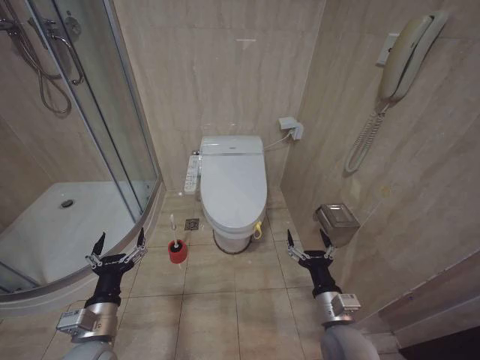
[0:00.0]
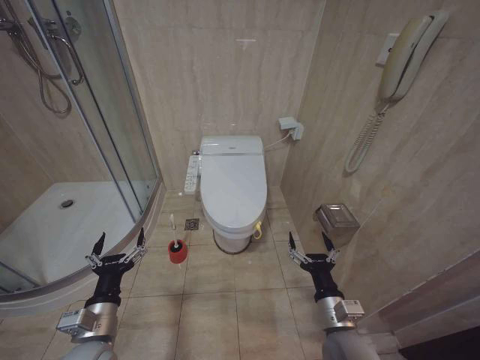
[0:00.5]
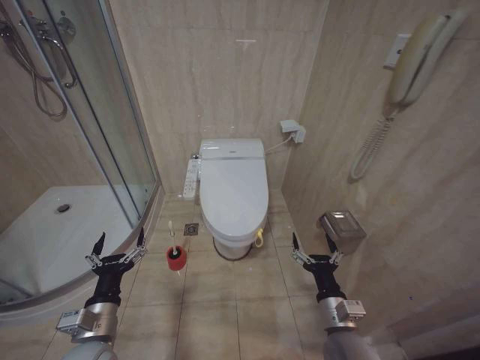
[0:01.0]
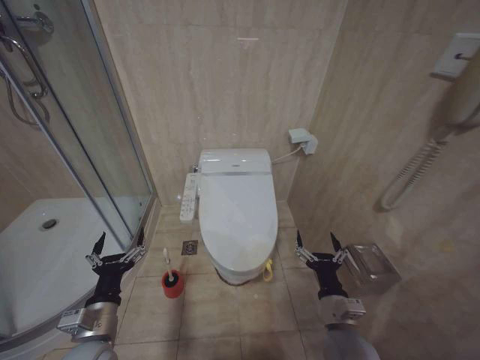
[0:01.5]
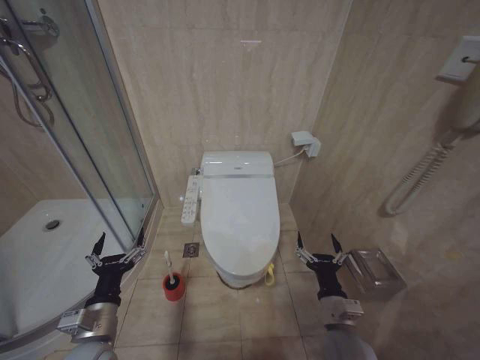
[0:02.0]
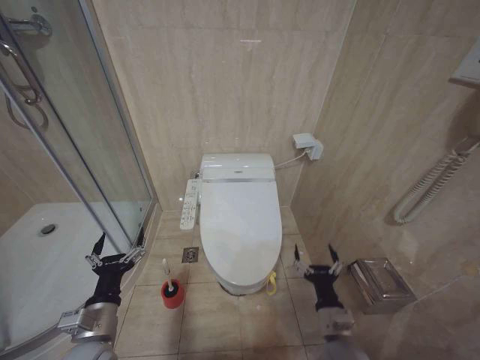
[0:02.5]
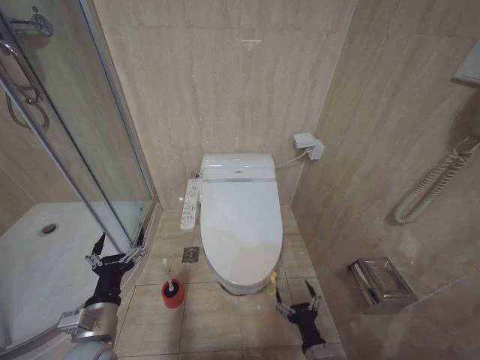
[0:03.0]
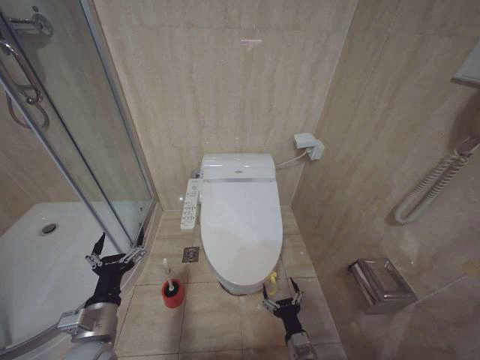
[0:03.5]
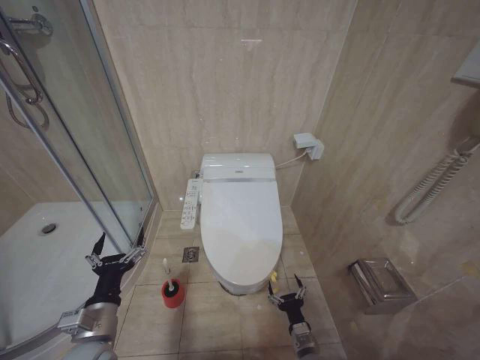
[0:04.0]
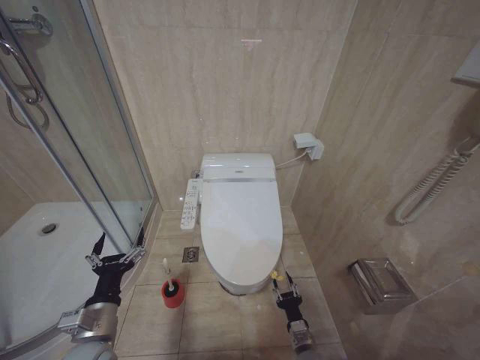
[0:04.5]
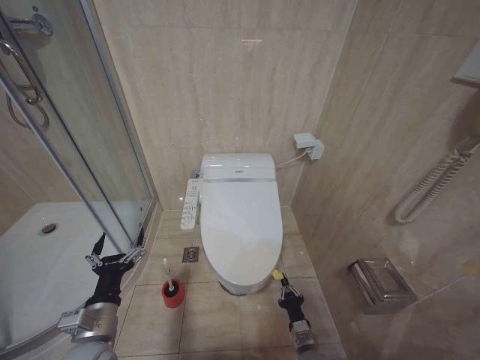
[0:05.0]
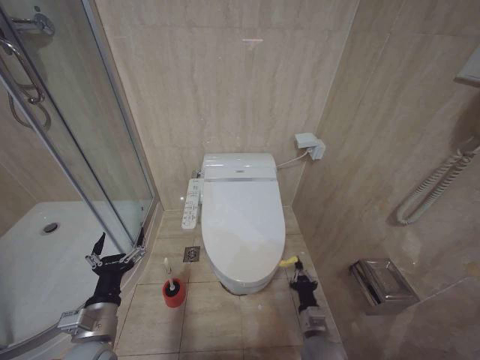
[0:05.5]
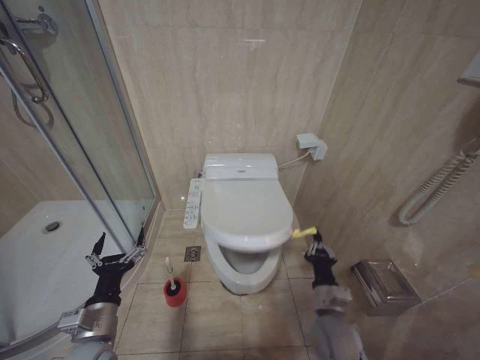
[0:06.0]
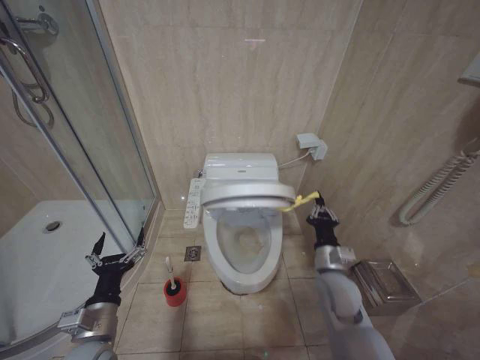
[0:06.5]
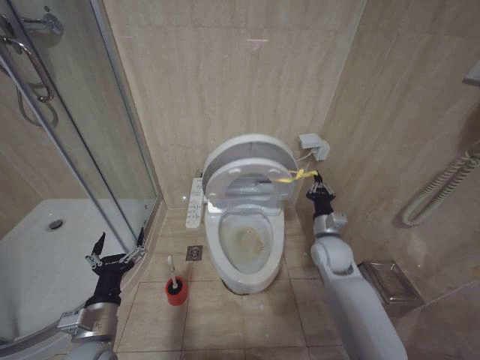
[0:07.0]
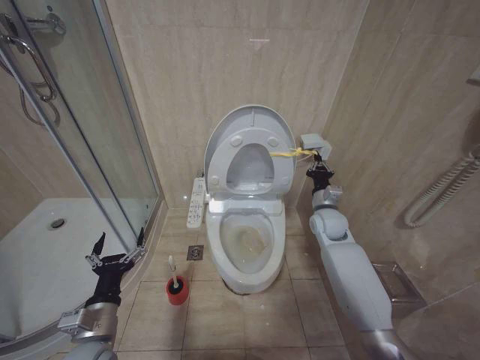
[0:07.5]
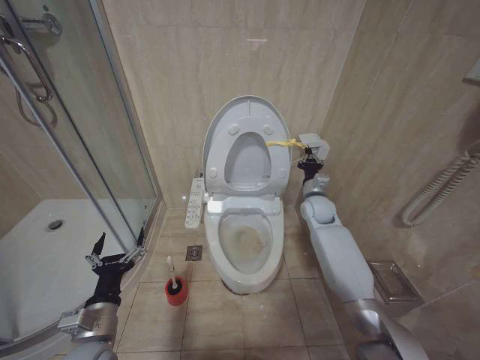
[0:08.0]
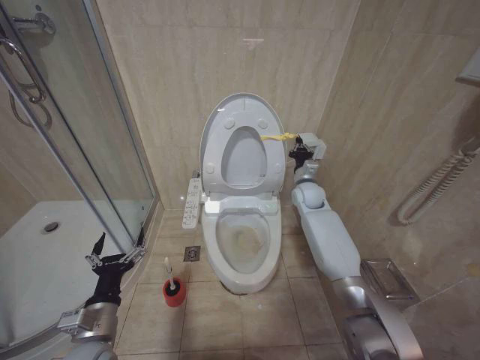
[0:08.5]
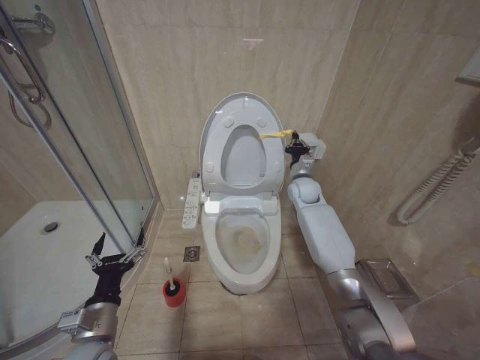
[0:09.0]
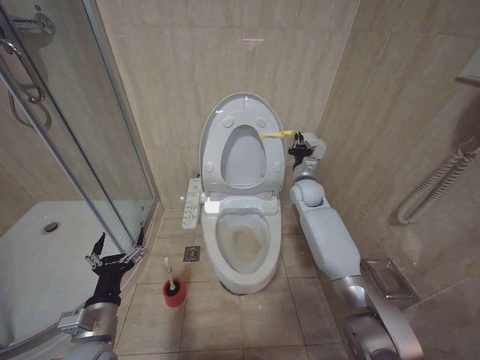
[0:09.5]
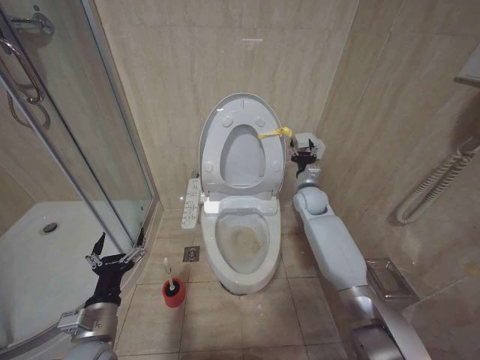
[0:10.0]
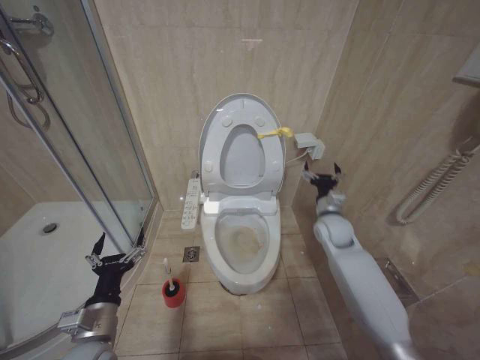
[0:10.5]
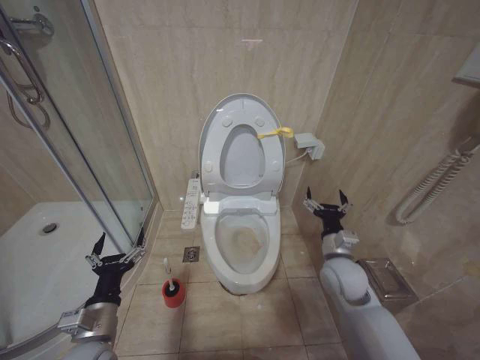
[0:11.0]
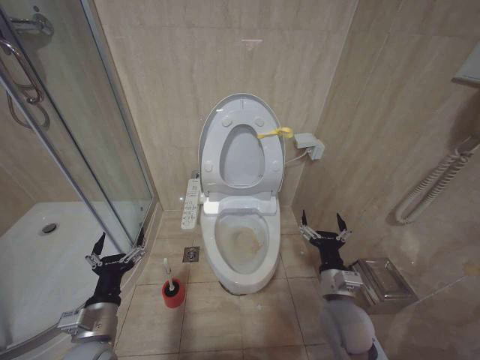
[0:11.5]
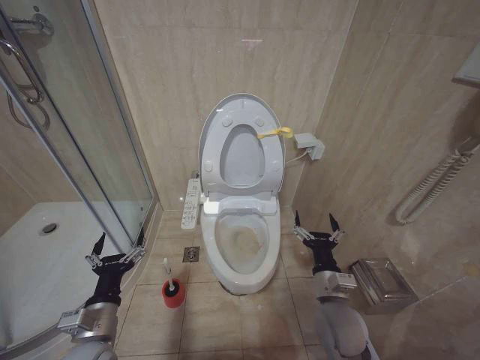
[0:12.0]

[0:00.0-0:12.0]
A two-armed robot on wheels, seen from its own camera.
Task of the whole recording: Open the toilet lid, clean the toilet bowl with a toilet brush, close the toilet lid, and flush.
0:02.0 to 0:04.0: The right gripper goes roughly 20 cm downward.
0:04.0 to 0:06.0: The right gripper goes approximately 15 cm upward, and closes.
0:06.0 to 0:08.0: The right gripper goes roughly 30 cm forward and upward.
0:10.0 to 0:12.0: The right gripper shifts roughly 30 cm backward, and opens.

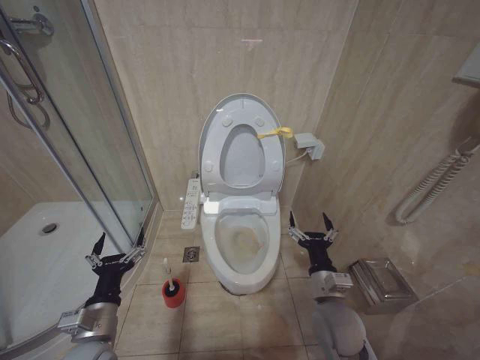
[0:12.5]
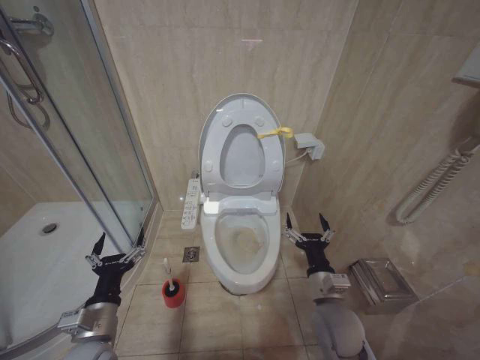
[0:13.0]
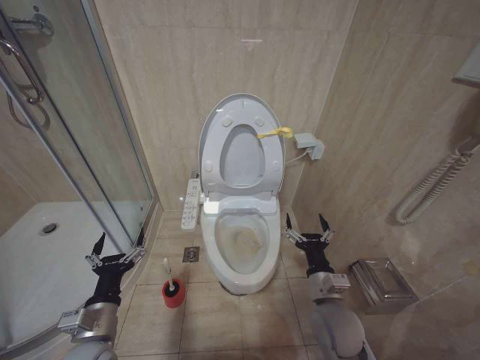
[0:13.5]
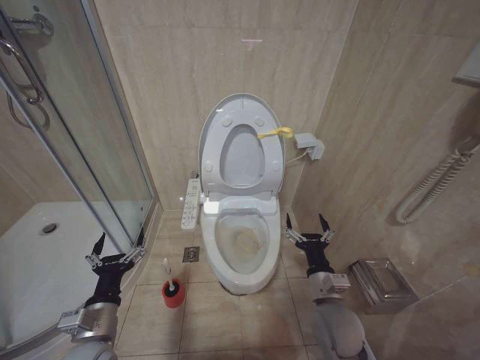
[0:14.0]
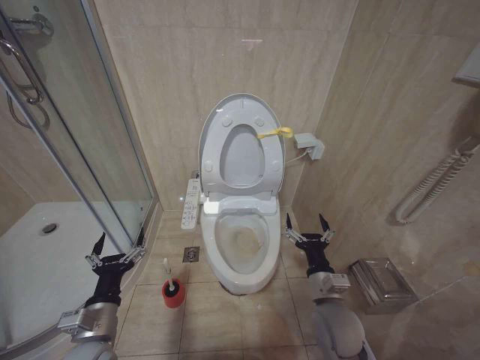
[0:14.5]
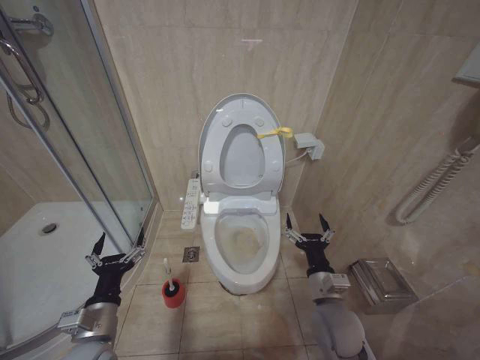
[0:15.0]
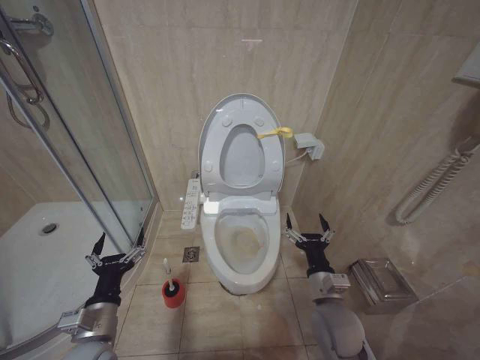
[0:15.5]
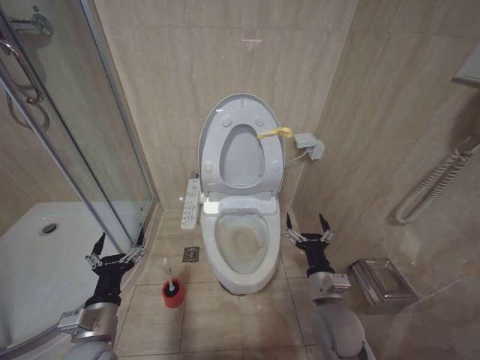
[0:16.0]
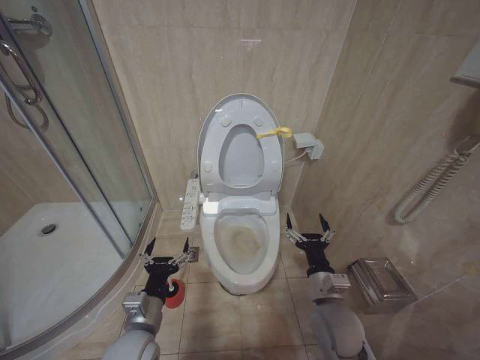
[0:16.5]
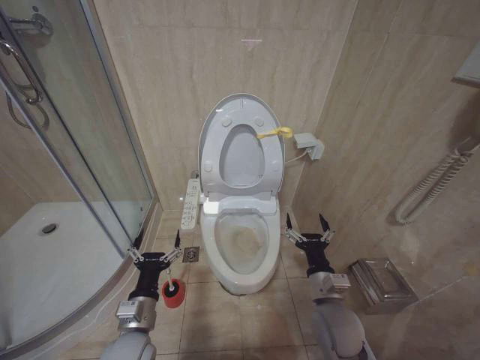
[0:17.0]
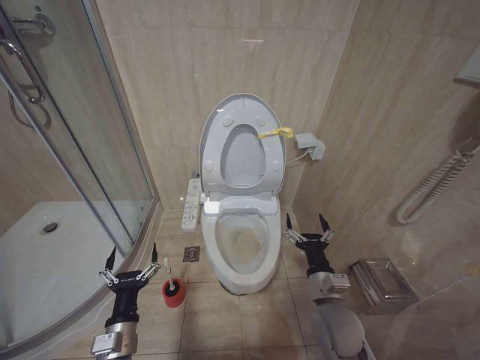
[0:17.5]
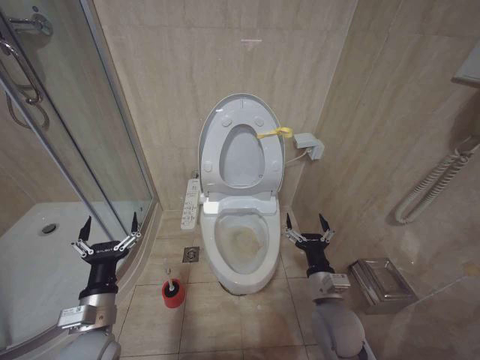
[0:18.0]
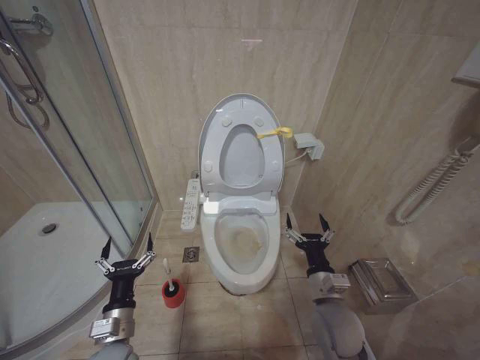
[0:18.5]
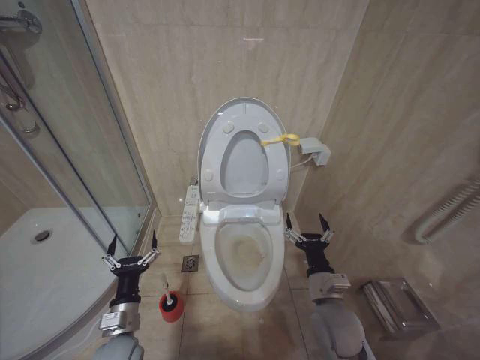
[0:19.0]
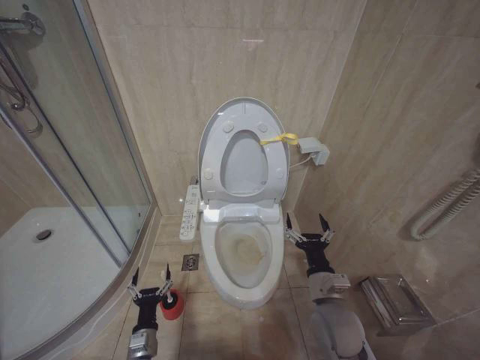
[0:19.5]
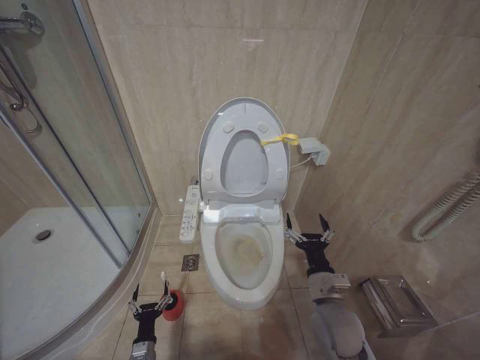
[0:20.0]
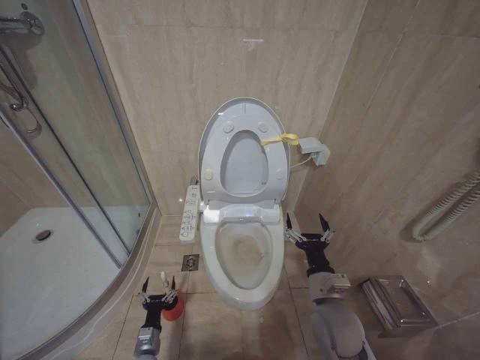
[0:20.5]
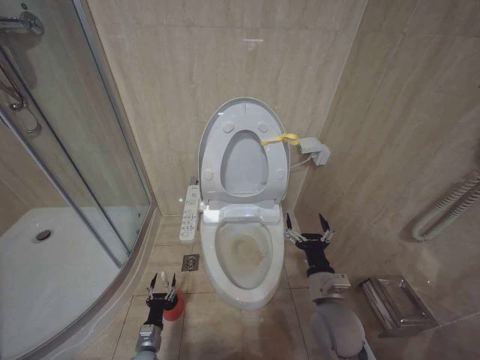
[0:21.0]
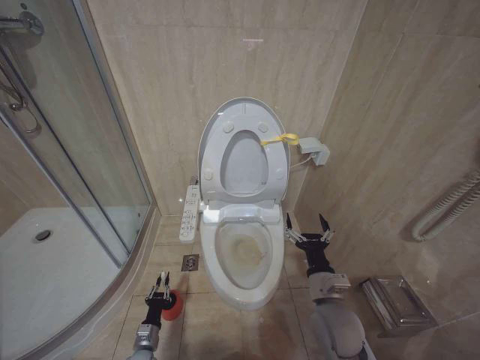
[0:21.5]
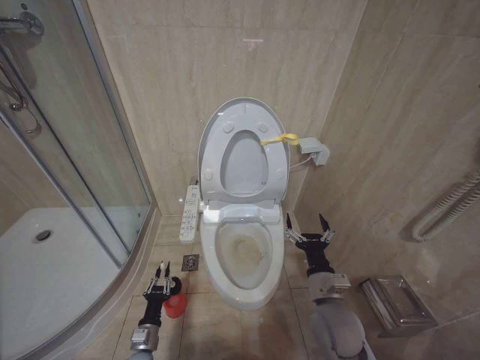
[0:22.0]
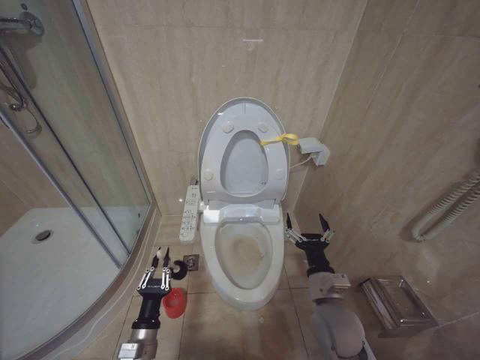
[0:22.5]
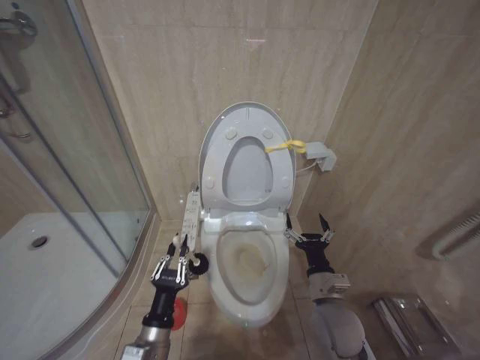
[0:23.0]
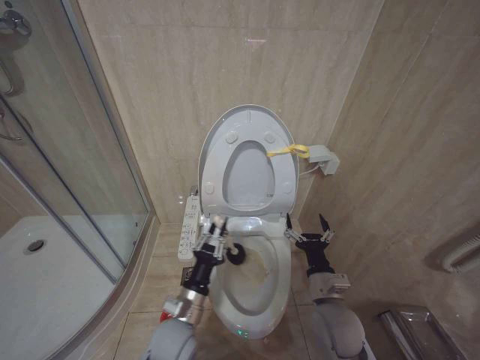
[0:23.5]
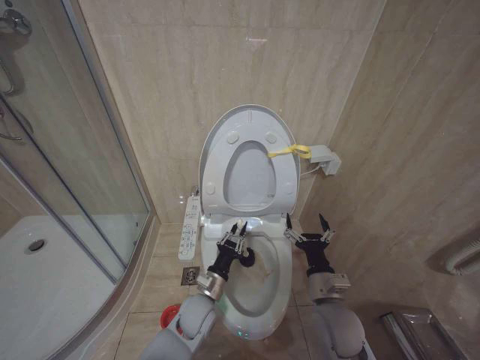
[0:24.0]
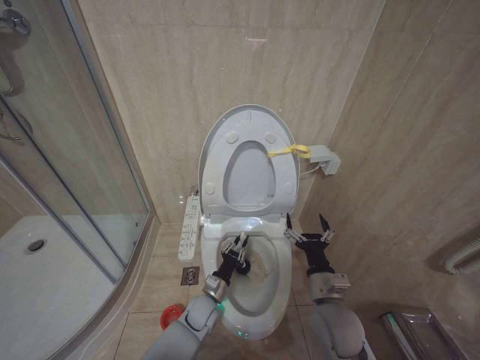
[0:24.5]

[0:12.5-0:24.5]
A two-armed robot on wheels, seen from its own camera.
Task of the whole recording: Open the toilet lid, clean the toilet bowl with a toilet brush, close the toilet lid, and flush.
0:12.5 to 0:14.5: Both grippers stay put.
0:14.5 to 0:16.5: The left gripper heads to the right, covering roughly 5 cm.
0:16.5 to 0:18.5: The left gripper heads to the left, covering roughly 5 cm.
0:18.5 to 0:20.5: The left gripper goes roughly 25 cm downward.
0:20.5 to 0:22.5: The left gripper is displaced upward by approximately 15 cm, and closes up.
0:22.5 to 0:24.5: The left gripper shifts approximately 20 cm forward and to the right.

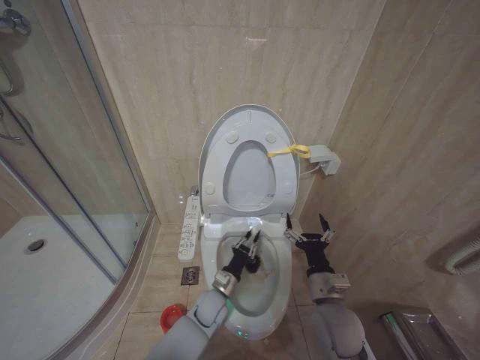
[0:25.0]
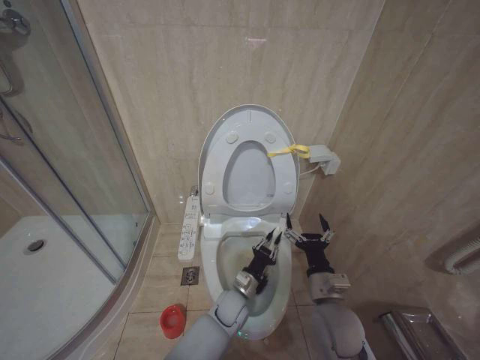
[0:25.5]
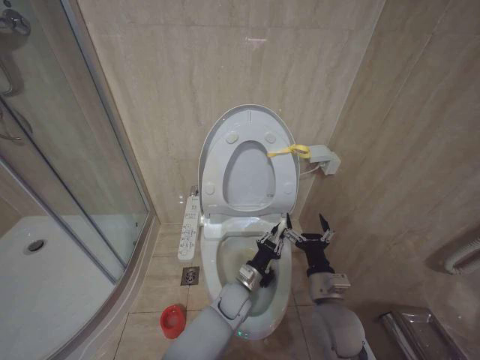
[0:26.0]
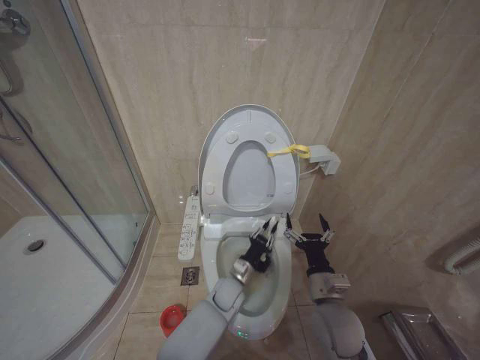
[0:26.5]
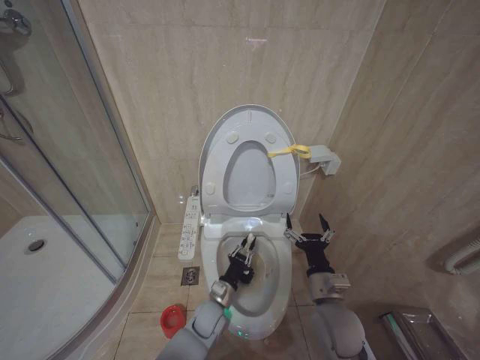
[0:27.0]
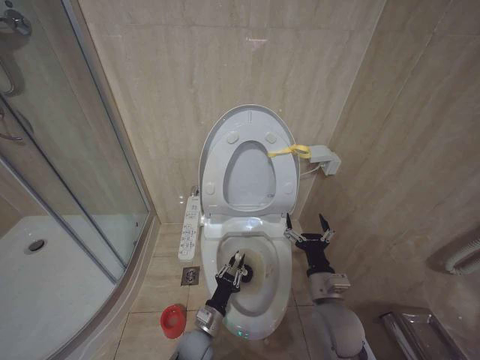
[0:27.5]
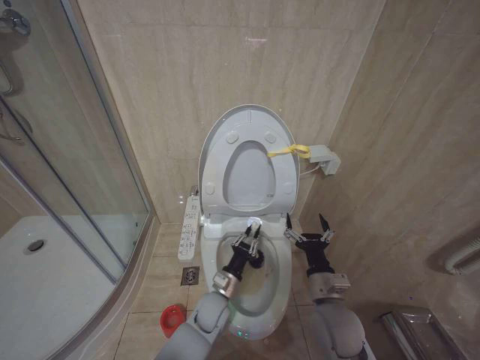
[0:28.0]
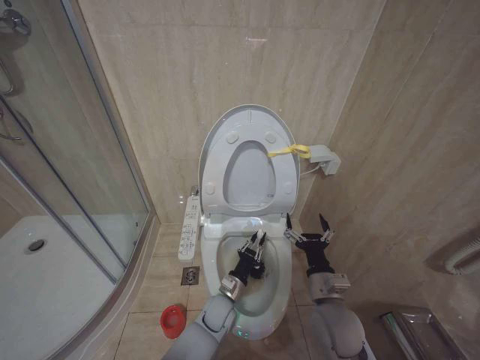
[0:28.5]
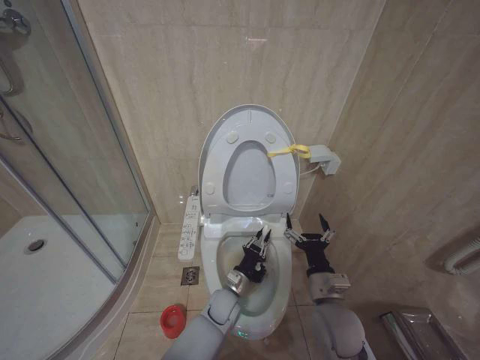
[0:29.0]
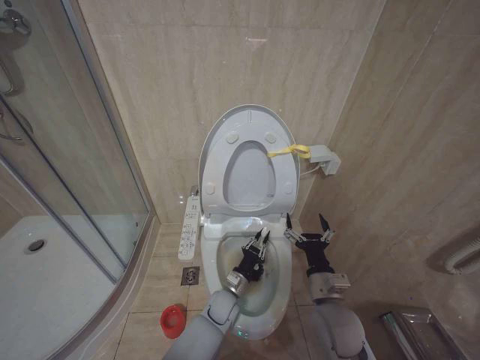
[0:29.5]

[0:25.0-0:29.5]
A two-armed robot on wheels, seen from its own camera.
Task of the whole recording: Open the toilet lid, clean the toilet bowl with a toilet brush, close the toilet lid, and flush.
0:27.0 to 0:29.5: The left gripper travels backward and back again, about 5 cm each way.
